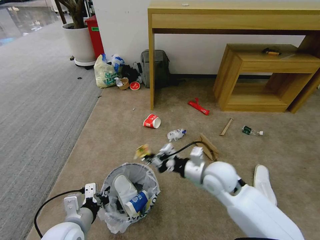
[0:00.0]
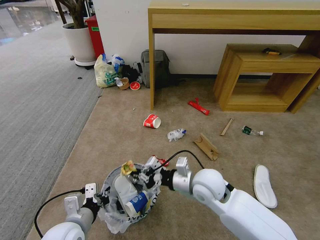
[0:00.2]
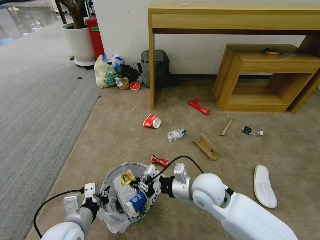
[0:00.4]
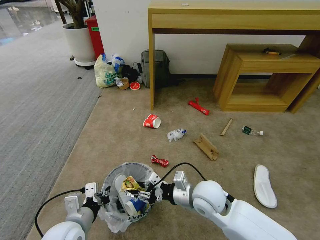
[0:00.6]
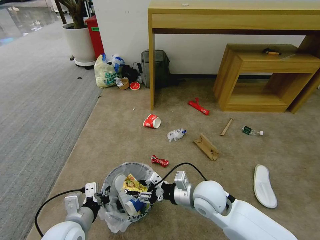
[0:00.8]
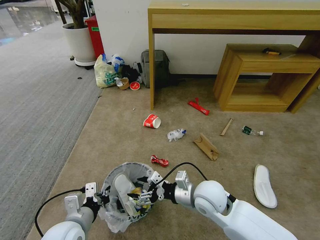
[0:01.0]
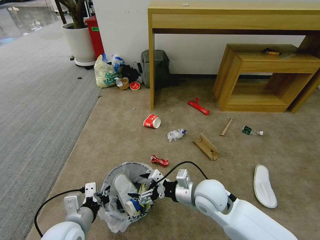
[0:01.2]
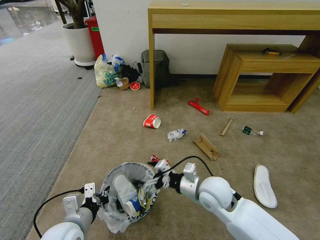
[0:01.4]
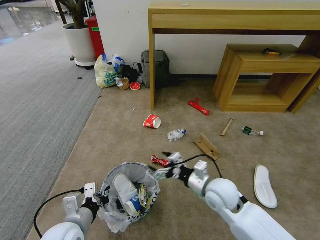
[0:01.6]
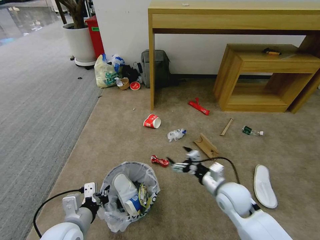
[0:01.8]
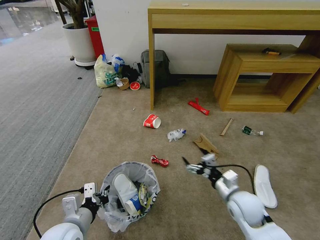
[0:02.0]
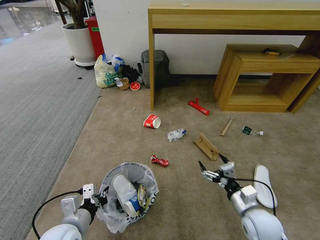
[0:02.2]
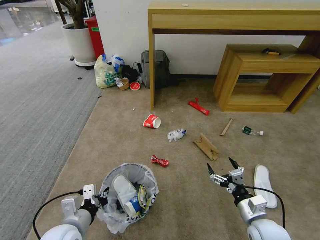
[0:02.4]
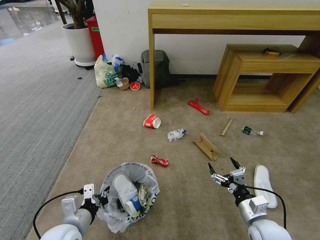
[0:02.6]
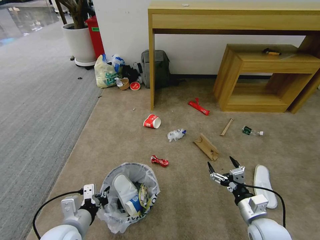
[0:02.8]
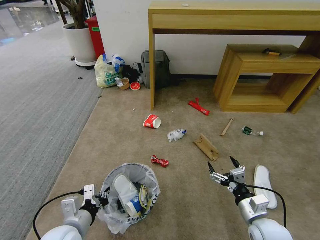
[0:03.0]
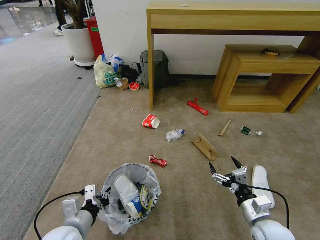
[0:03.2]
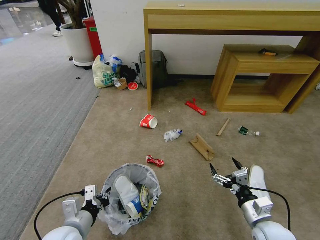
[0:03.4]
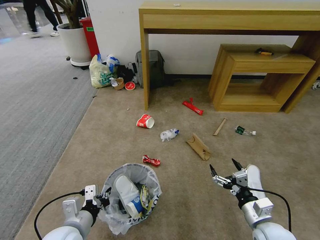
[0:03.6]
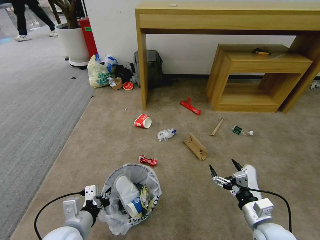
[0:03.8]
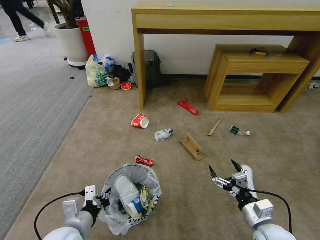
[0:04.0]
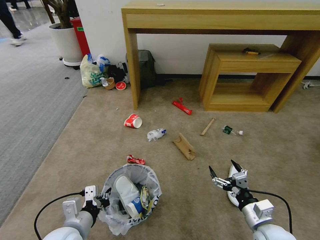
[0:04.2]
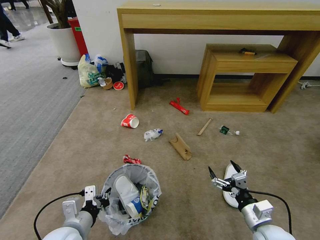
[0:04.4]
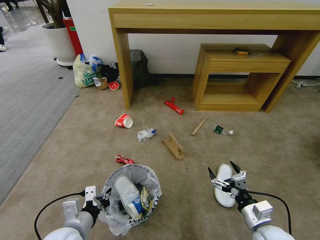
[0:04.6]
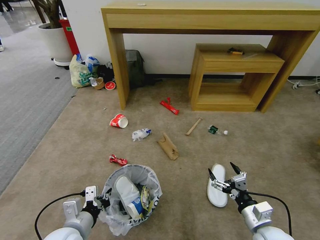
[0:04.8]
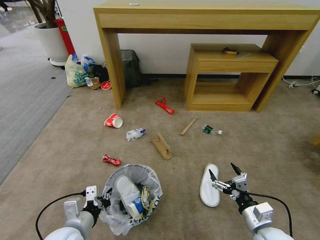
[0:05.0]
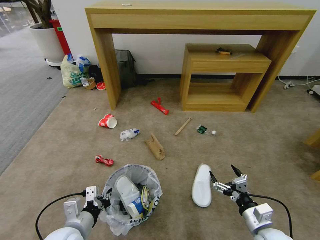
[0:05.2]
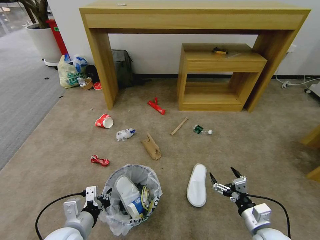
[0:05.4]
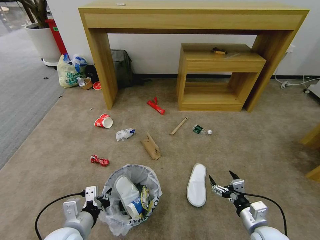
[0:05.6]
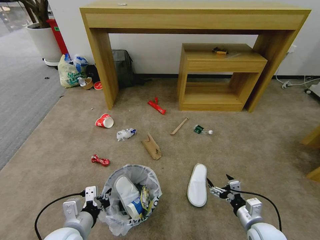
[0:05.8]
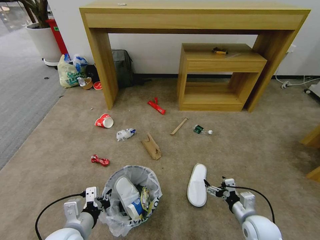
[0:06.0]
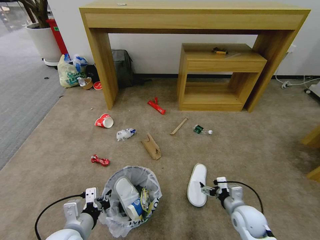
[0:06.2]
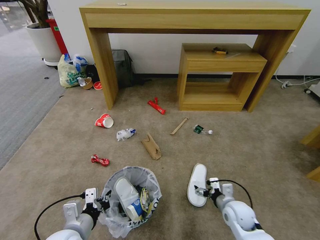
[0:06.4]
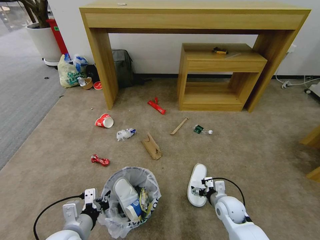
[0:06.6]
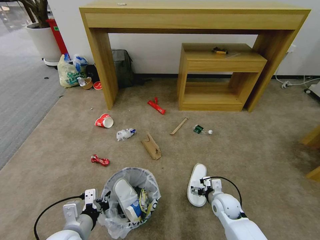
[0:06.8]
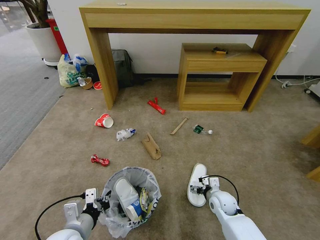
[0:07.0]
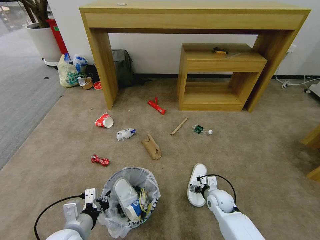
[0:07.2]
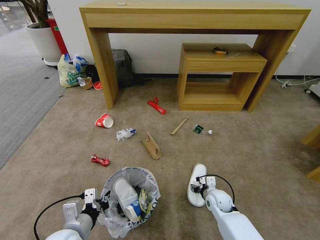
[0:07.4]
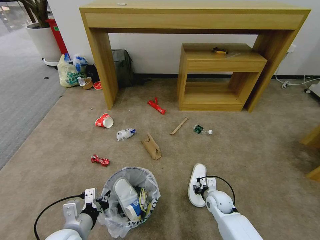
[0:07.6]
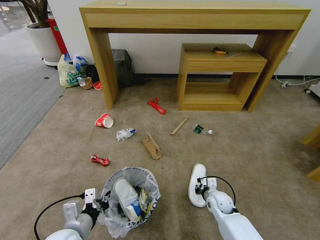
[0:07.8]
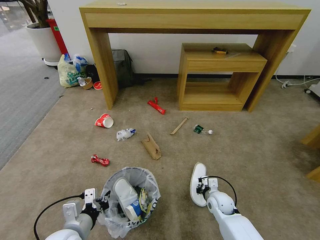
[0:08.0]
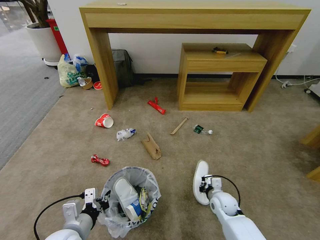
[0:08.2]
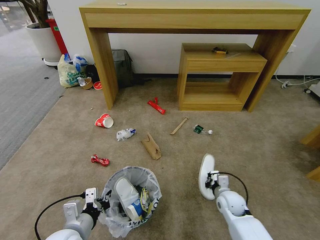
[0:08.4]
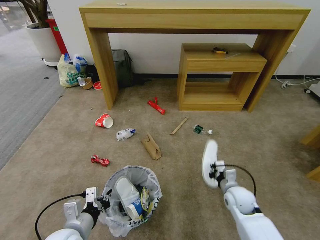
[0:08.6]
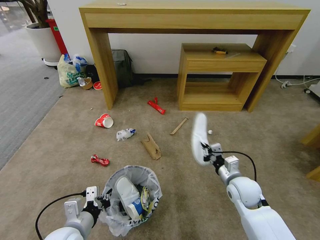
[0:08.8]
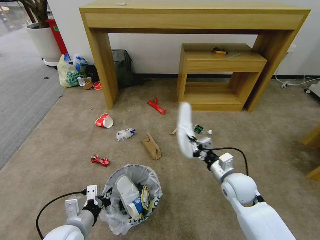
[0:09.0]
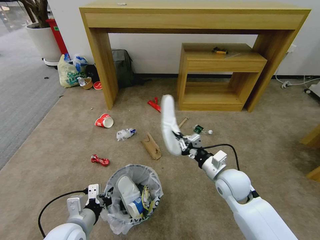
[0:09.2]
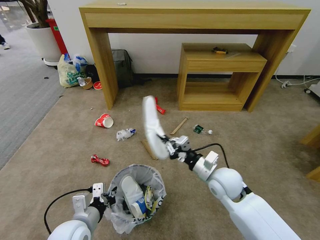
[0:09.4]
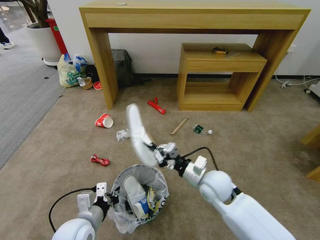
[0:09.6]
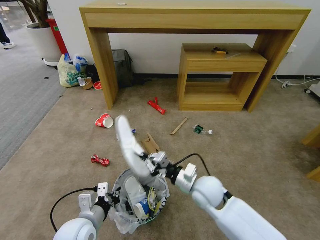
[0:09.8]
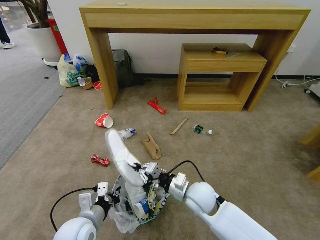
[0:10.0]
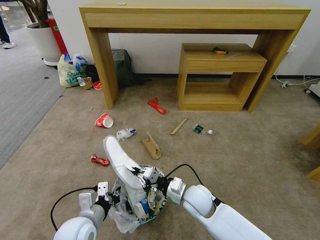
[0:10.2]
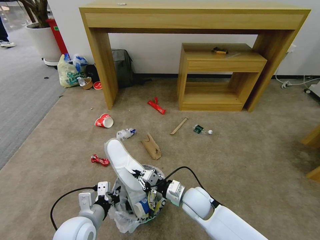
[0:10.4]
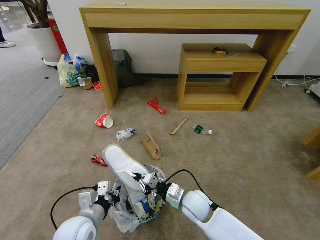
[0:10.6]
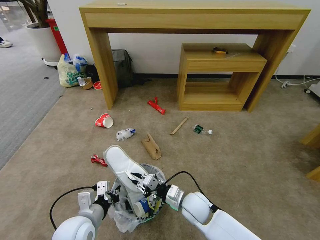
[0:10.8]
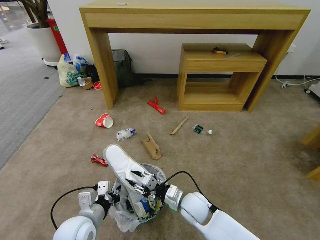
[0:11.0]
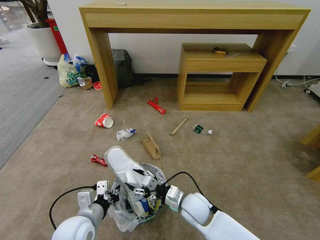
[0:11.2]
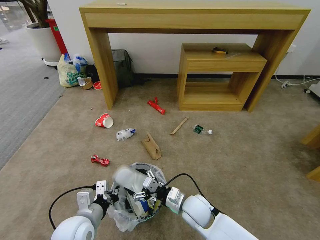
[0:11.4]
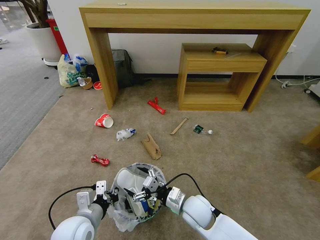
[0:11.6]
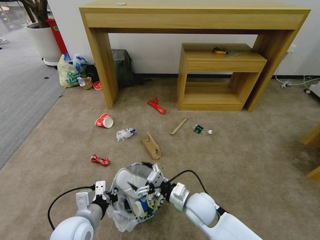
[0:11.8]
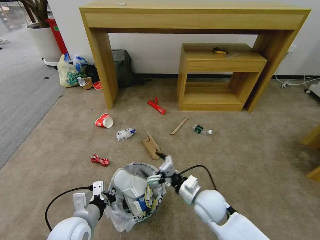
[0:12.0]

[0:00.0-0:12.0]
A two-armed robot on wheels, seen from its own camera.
Task of the whole recording: Pick up the trash bin and place the garbage on the floor into it.
0:00.0 to 0:01.6: The right gripper moves about 5 cm, and opens its fingers.
0:01.6 to 0:03.0: The right gripper shifts about 15 cm to the right, backward and downward.
0:04.4 to 0:06.0: The right gripper is displaced downward by about 5 cm.
0:06.0 to 0:07.6: The right gripper is displaced forward, to the left and downward by approximately 15 cm, and closes up.
0:07.6 to 0:09.0: The right gripper goes some 15 cm upward.
0:09.0 to 0:10.4: The right gripper travels to the left and downward by approximately 15 cm.
0:10.4 to 0:12.0: The right gripper opens its fingers.

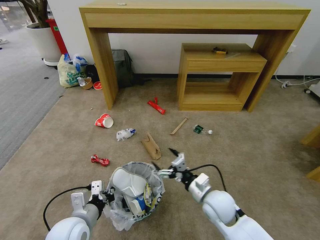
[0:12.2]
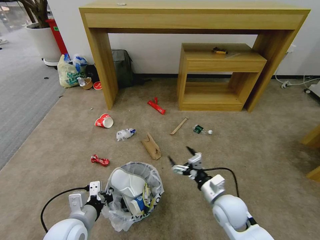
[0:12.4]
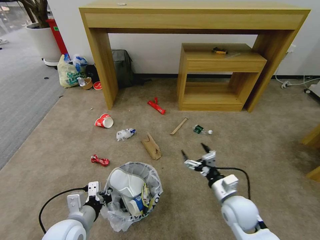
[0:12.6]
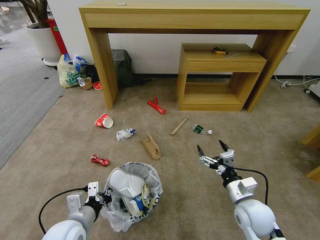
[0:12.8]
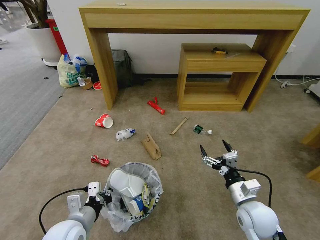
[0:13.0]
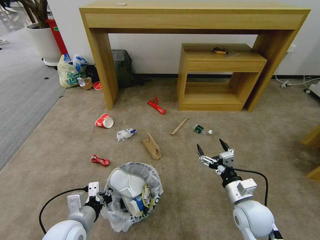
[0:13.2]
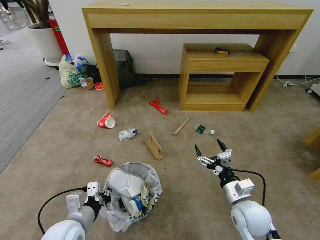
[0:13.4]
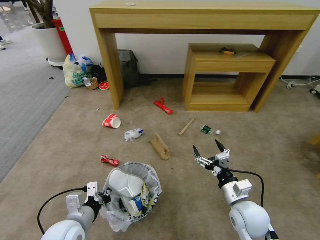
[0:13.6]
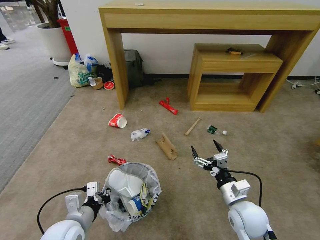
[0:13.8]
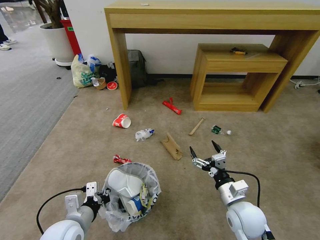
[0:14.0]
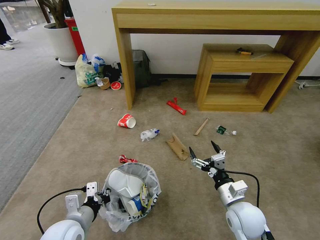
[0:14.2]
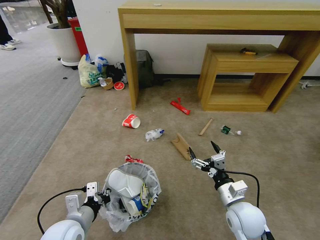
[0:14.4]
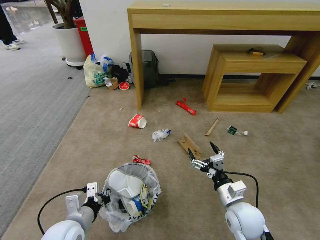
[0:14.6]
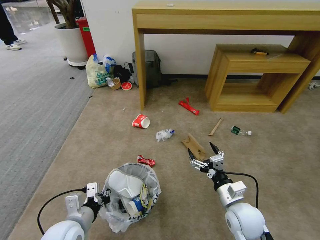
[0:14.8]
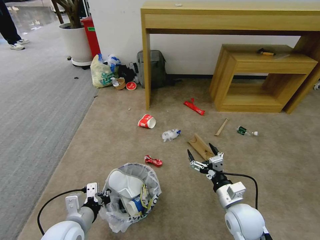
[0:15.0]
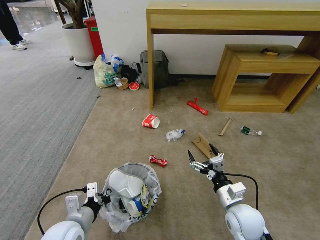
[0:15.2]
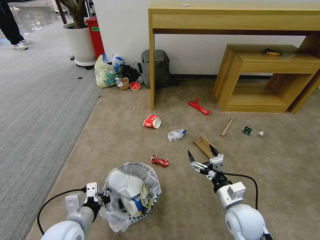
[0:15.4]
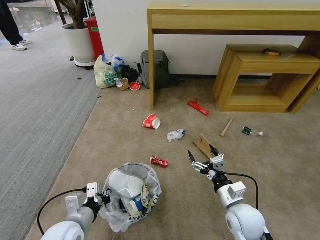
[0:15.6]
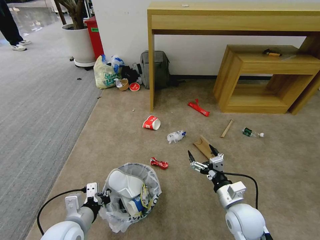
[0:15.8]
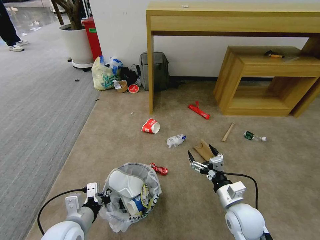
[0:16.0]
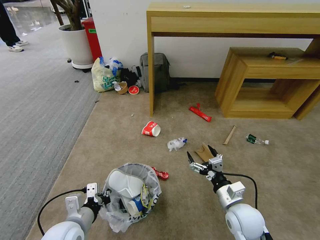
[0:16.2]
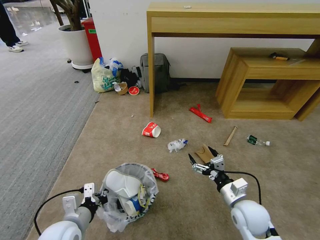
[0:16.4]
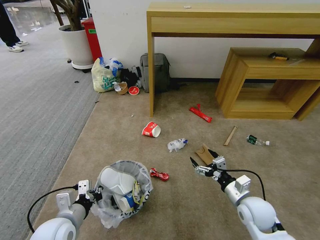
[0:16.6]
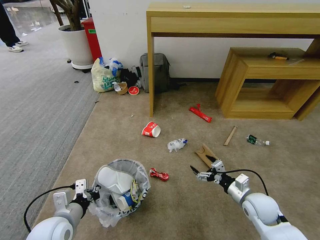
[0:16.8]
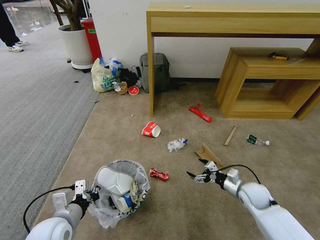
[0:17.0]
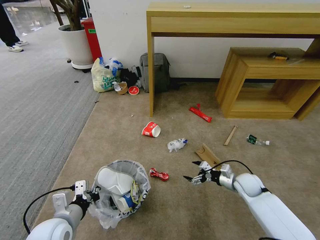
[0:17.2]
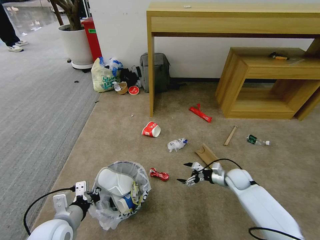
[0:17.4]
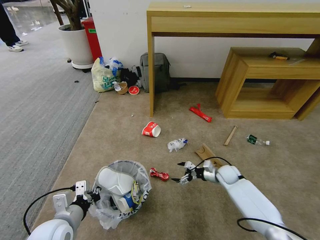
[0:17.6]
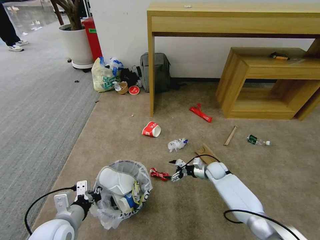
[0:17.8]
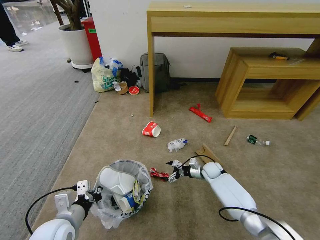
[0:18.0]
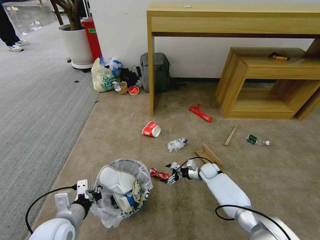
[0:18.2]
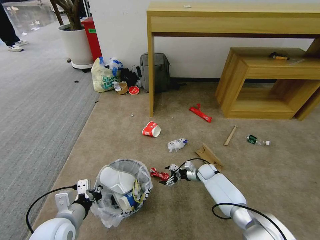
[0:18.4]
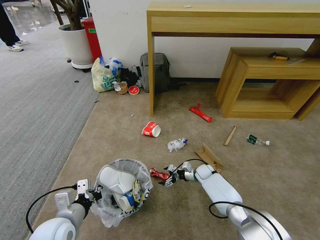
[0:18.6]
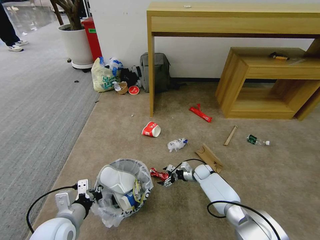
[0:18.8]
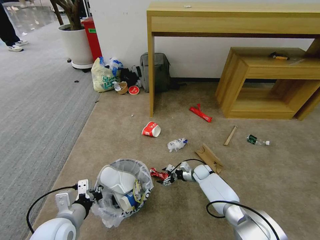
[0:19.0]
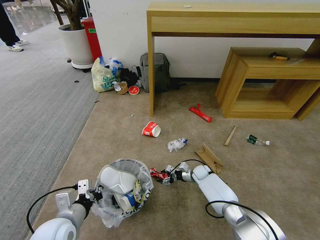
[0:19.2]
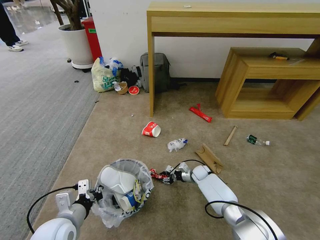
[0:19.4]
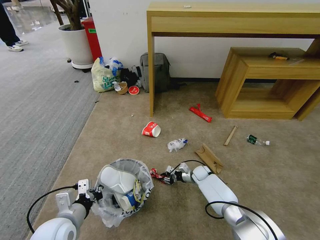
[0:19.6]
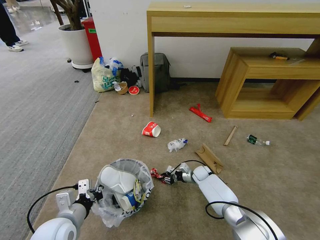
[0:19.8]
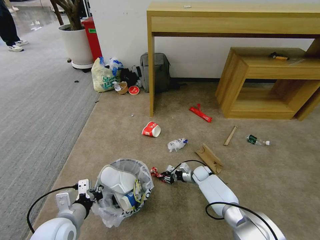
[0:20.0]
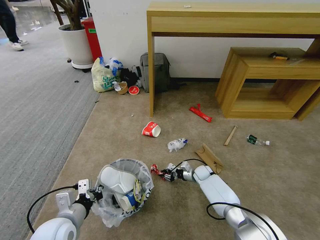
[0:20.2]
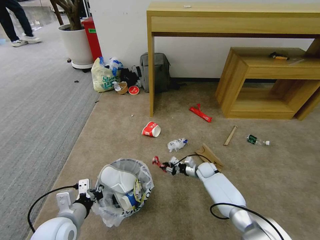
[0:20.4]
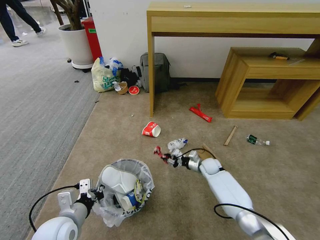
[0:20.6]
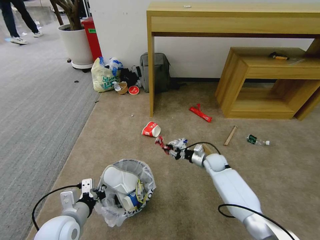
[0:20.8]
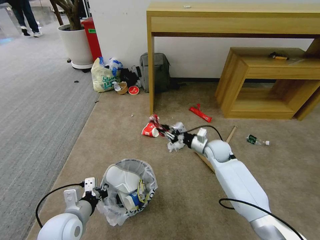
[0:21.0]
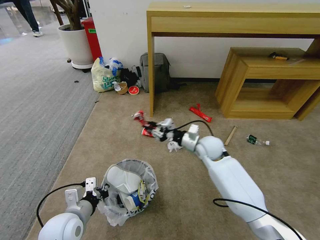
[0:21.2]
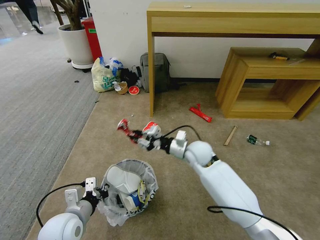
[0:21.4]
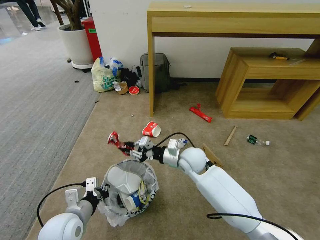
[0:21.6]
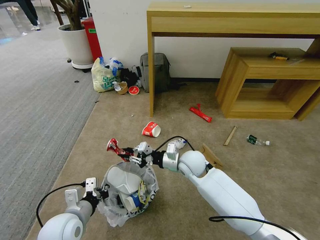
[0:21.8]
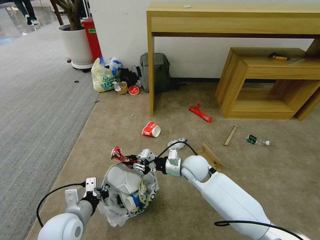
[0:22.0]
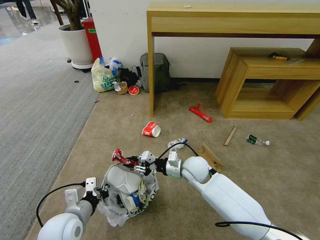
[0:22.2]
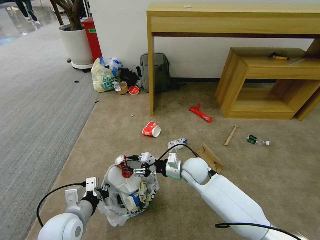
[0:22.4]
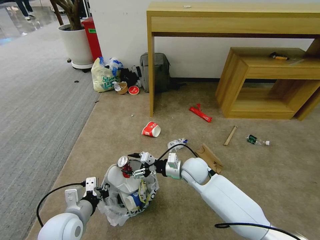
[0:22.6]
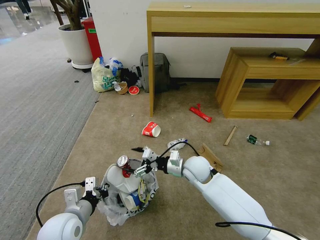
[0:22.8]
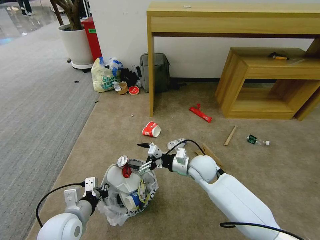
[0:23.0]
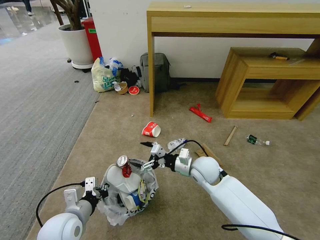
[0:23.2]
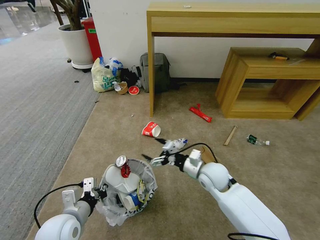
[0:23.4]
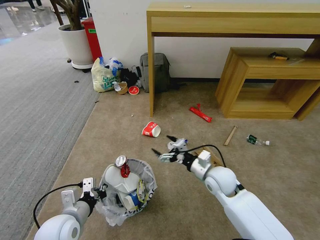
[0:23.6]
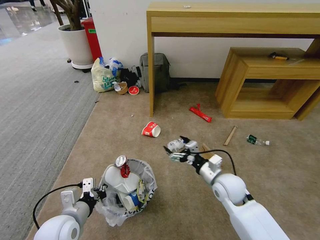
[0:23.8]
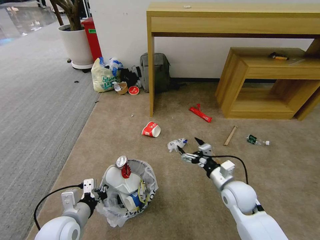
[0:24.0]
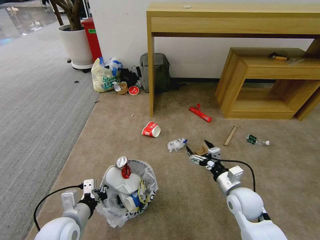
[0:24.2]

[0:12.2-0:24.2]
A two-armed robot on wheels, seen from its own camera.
Task of the whole recording: Pick up the trash bin and place the garbage on the floor into it.
0:12.2 to 0:13.8: The right gripper is displaced to the right by about 5 cm.
0:15.2 to 0:16.6: The right gripper goes some 5 cm to the right.
0:16.6 to 0:18.2: The right gripper heads forward and downward, covering roughly 25 cm.
0:18.2 to 0:19.8: The right gripper closes.
0:19.8 to 0:21.2: The right gripper goes roughly 25 cm upward.
0:21.2 to 0:22.6: The right gripper travels backward and to the left by roughly 10 cm, and opens its fingers.
0:22.6 to 0:24.2: The right gripper travels to the right and backward by about 20 cm.
